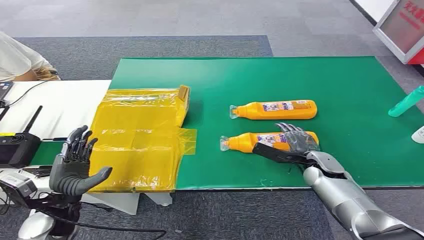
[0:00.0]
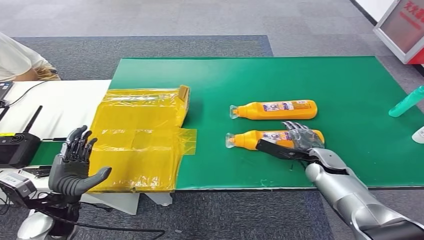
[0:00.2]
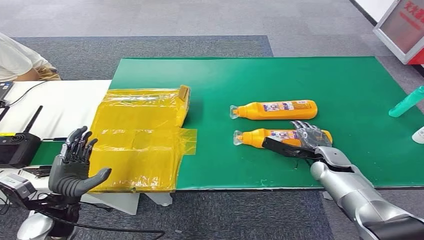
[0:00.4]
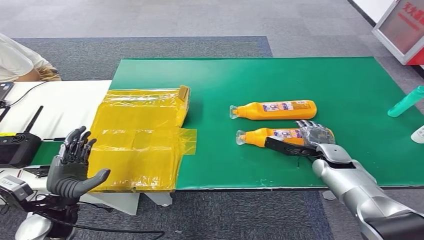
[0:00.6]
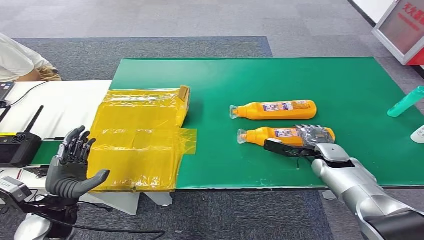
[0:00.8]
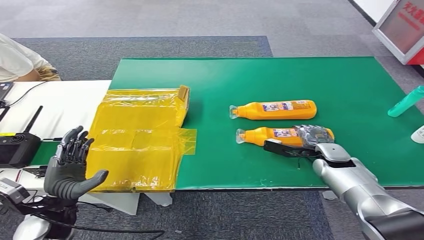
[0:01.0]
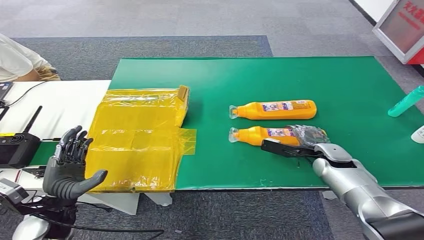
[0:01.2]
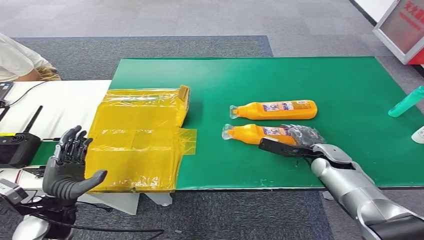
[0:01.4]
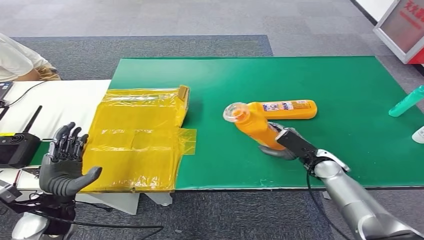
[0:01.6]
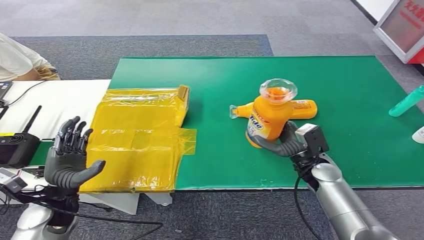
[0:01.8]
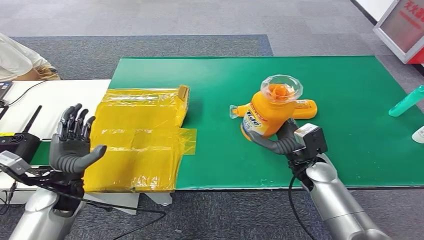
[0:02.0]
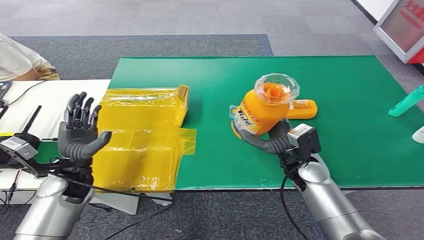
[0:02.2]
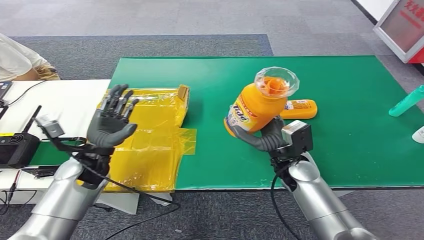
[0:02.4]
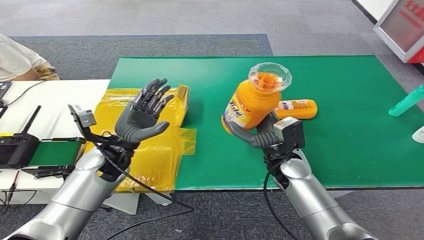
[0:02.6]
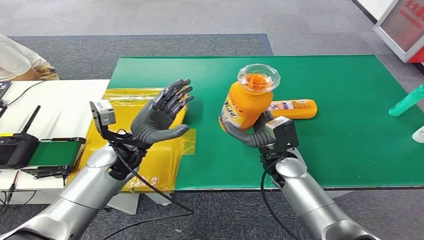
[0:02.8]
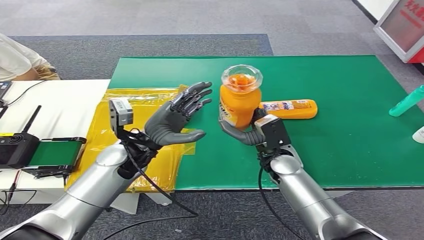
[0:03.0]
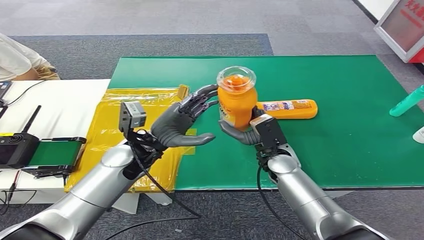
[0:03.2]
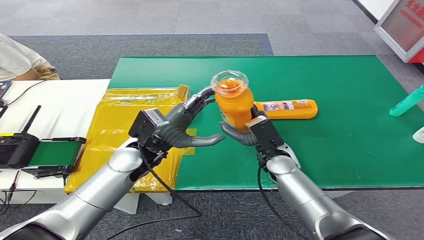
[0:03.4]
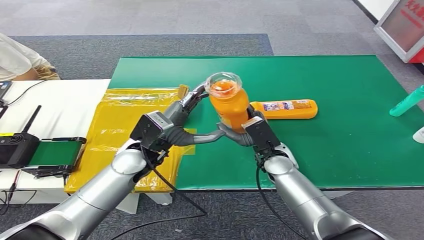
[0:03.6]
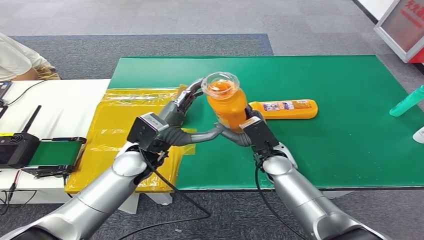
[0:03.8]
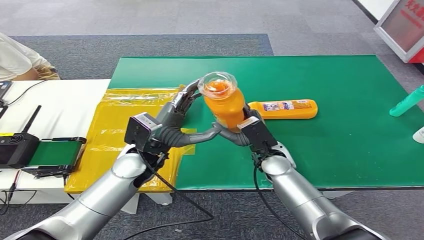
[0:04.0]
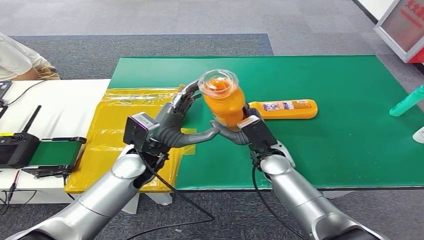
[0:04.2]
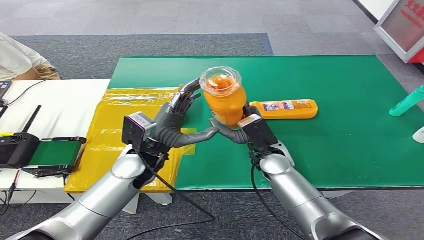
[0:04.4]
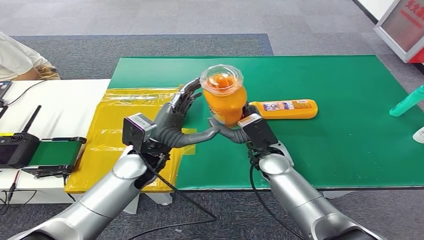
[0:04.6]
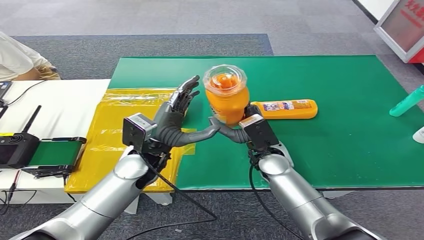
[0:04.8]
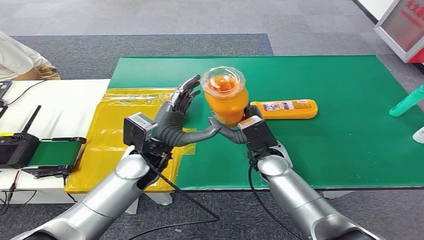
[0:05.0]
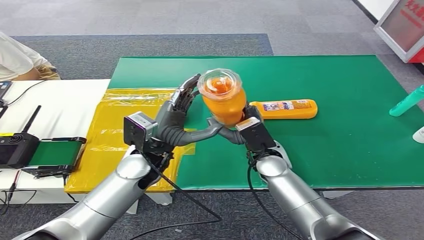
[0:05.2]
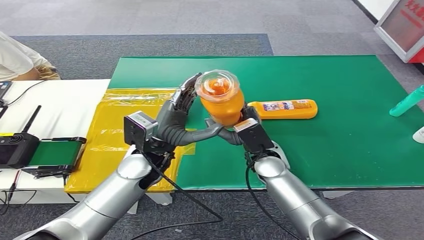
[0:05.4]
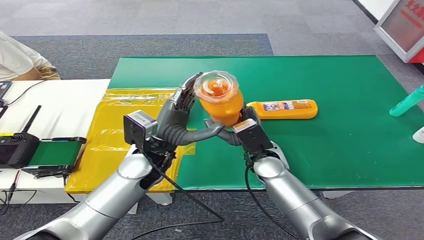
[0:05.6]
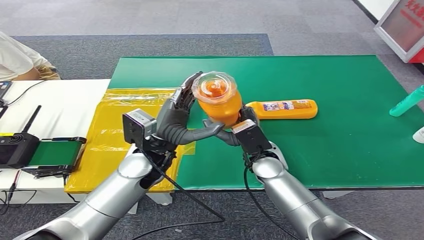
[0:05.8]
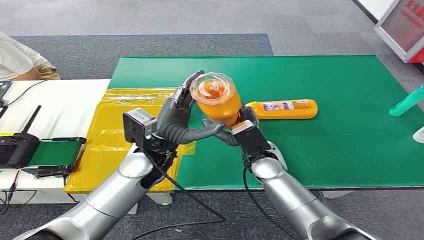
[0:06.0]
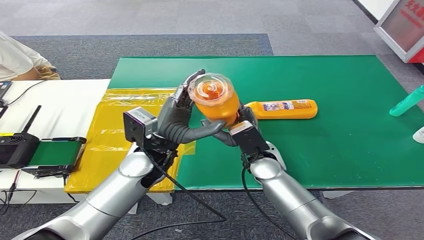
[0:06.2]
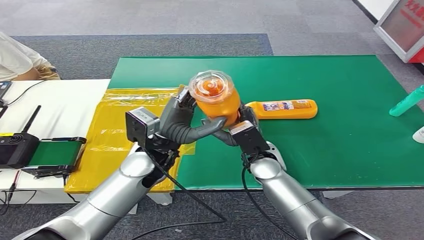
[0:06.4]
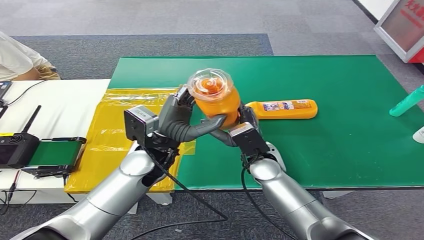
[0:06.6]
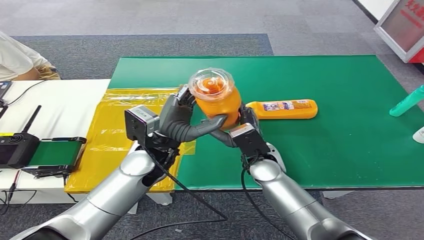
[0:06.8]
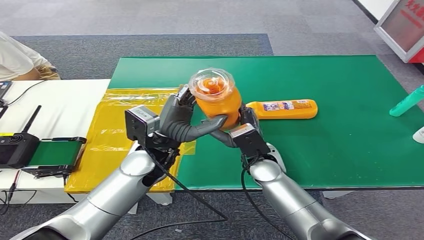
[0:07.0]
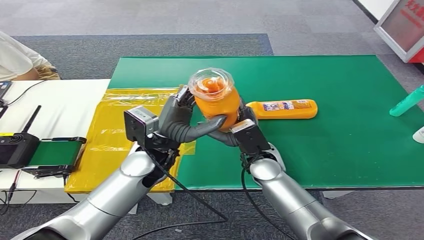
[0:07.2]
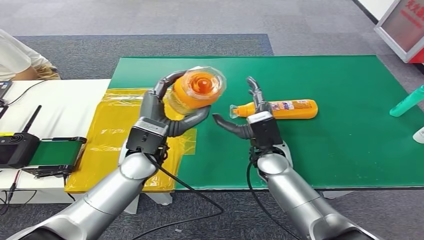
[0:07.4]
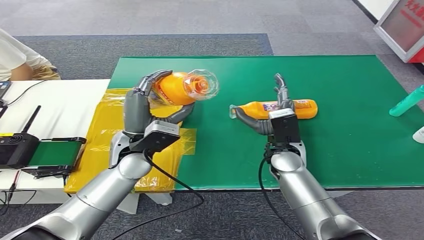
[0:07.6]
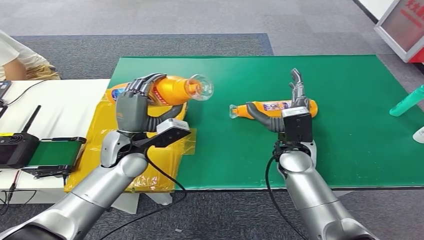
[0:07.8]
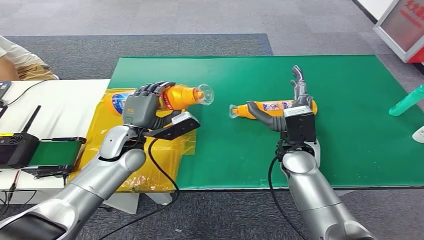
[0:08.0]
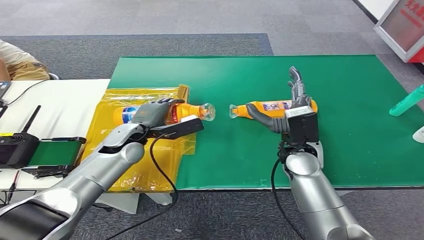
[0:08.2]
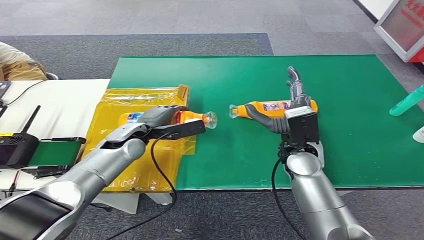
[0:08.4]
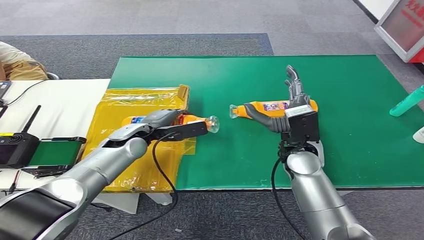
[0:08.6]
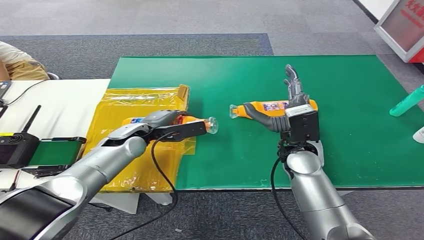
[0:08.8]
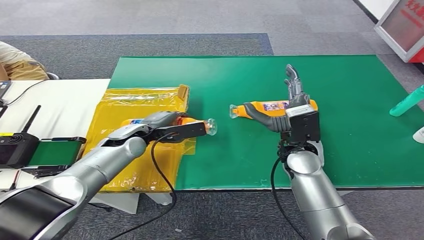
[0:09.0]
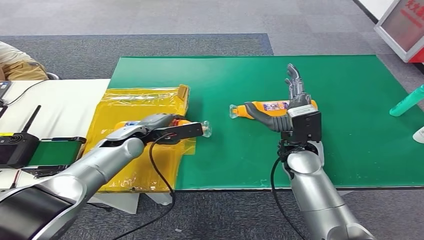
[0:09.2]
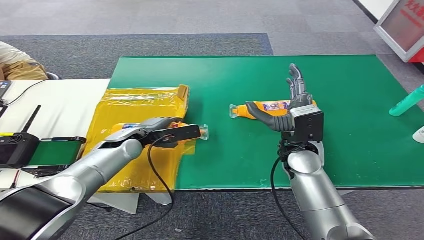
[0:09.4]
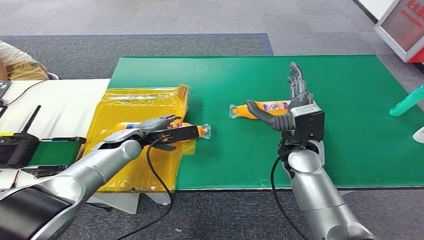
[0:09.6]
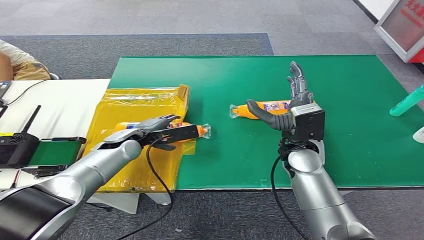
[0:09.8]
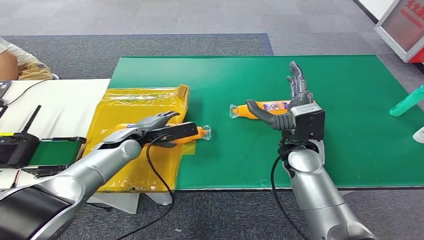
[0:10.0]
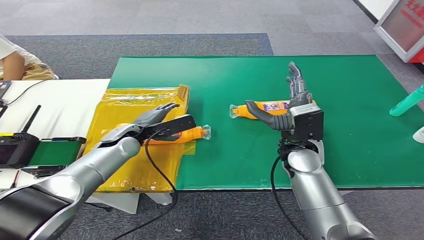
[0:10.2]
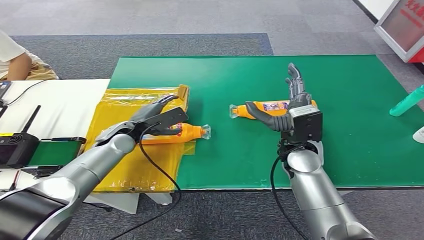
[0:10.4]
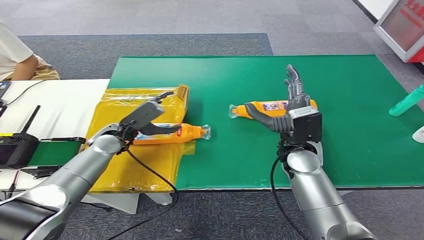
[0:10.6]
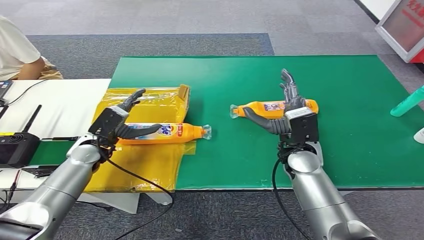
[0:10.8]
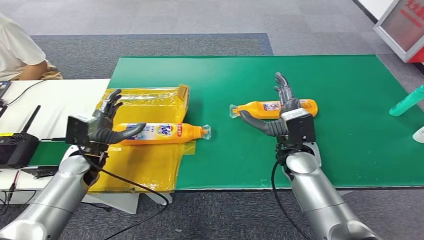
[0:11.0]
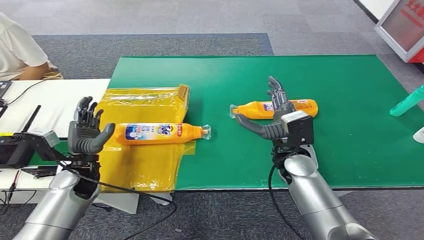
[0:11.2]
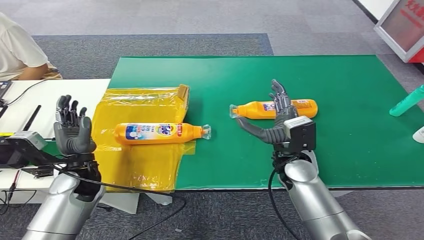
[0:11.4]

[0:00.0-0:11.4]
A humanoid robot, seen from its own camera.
Step, 0:00.0 to 0:02.8: Pick up the bottle from the table.
Step, 0:03.0 to 0:11.4: Turn the bottle to the front side.
0:04.2 to 0:07.2: The hands stay close to where they were, moving slightly.
0:08.6 to 0:10.0: There are only small adjustments of the hands.

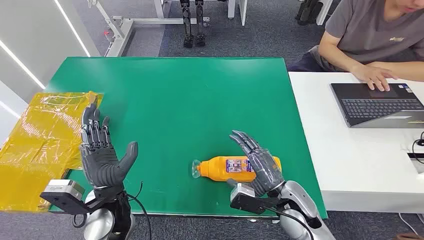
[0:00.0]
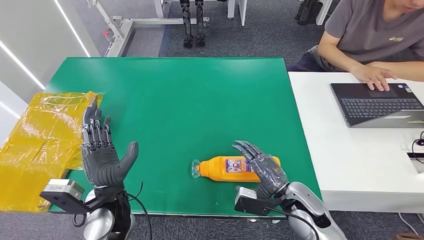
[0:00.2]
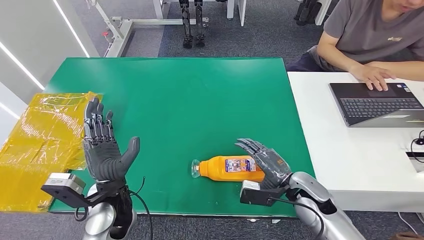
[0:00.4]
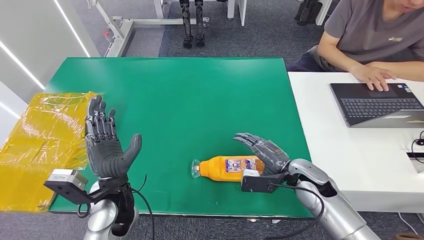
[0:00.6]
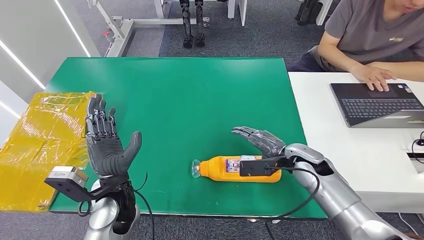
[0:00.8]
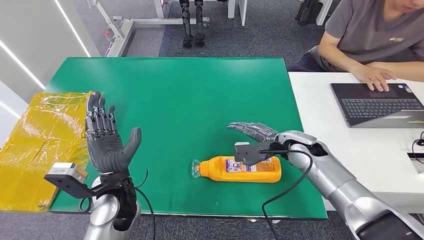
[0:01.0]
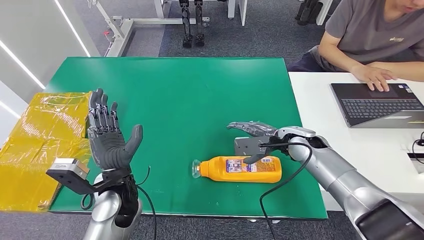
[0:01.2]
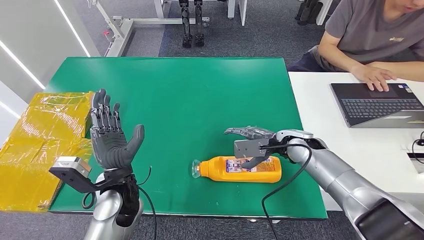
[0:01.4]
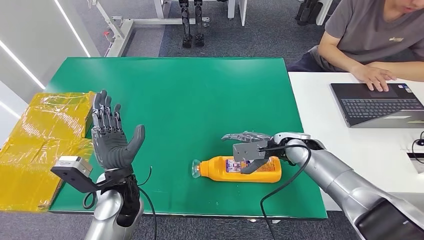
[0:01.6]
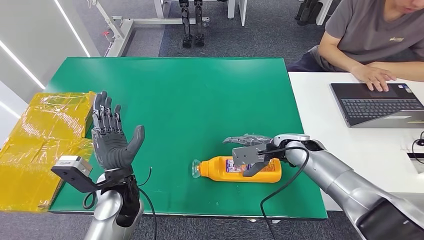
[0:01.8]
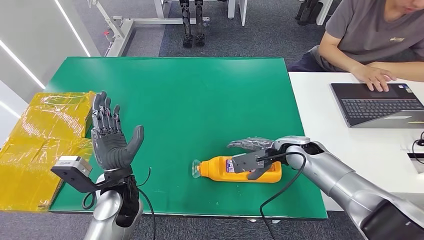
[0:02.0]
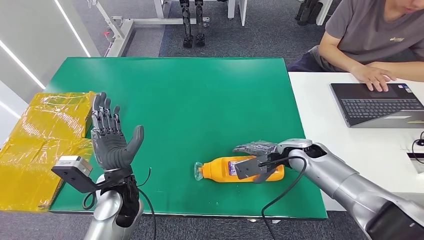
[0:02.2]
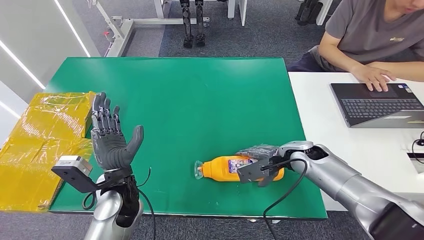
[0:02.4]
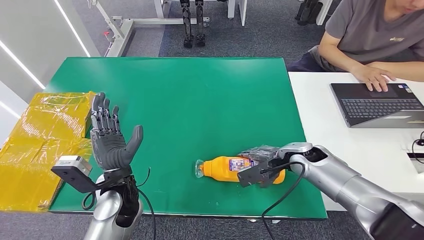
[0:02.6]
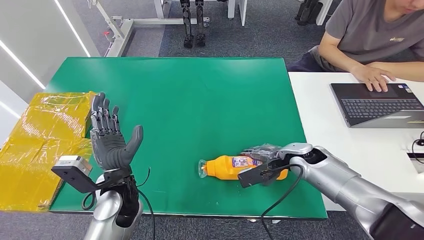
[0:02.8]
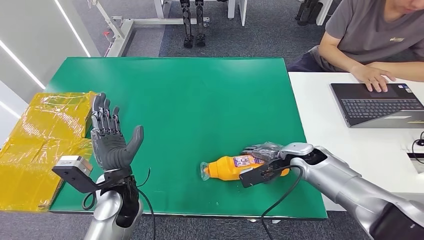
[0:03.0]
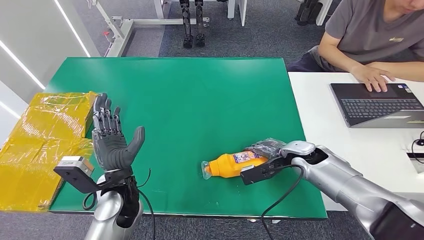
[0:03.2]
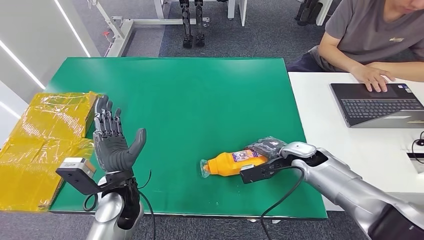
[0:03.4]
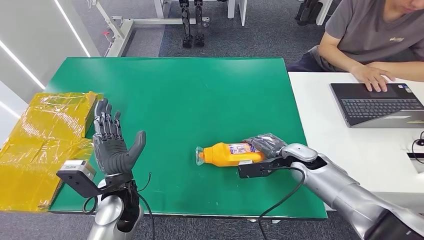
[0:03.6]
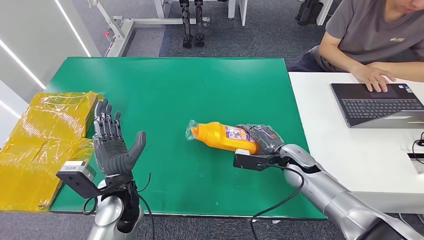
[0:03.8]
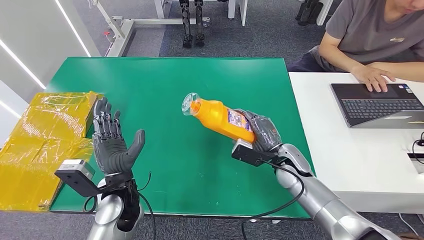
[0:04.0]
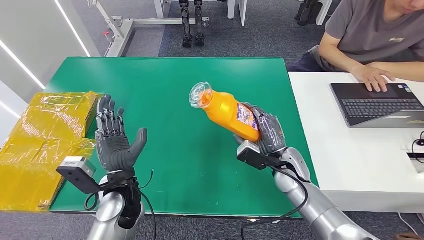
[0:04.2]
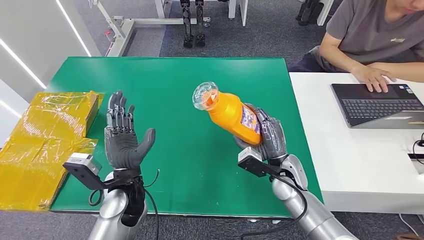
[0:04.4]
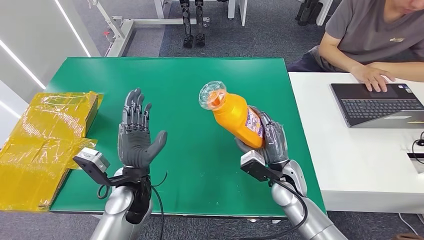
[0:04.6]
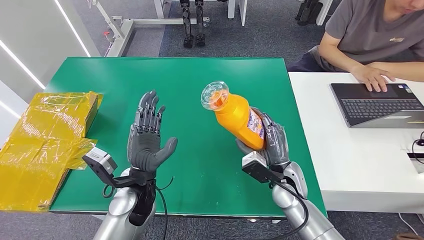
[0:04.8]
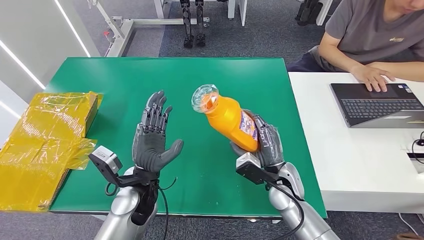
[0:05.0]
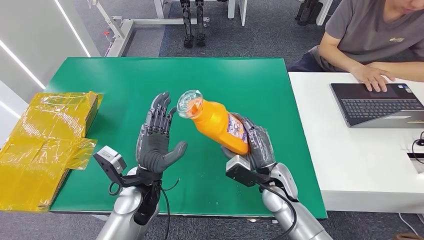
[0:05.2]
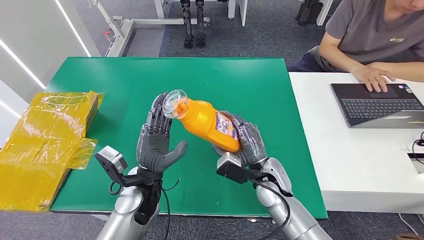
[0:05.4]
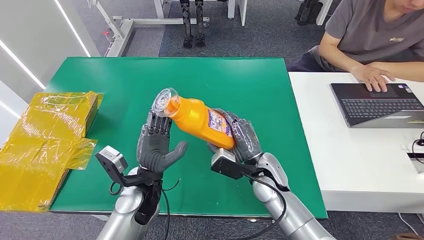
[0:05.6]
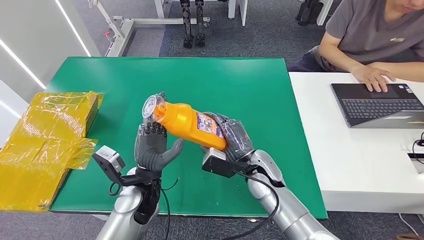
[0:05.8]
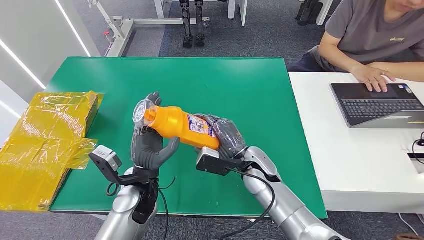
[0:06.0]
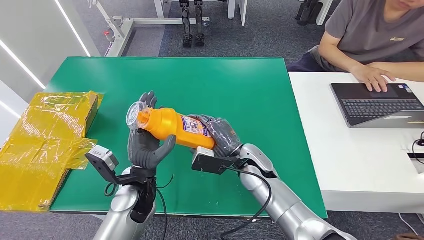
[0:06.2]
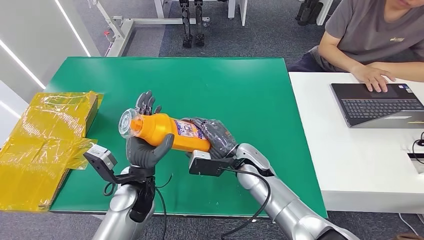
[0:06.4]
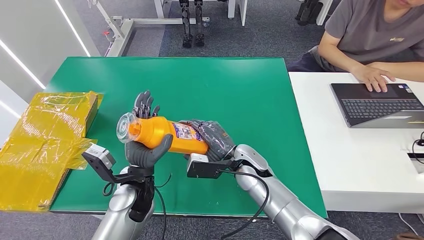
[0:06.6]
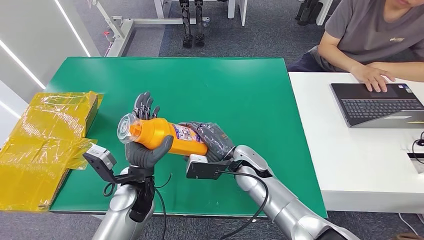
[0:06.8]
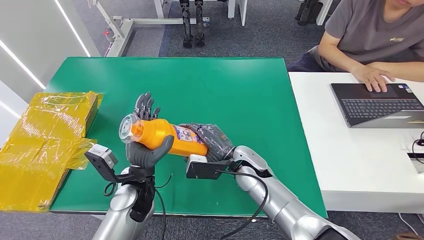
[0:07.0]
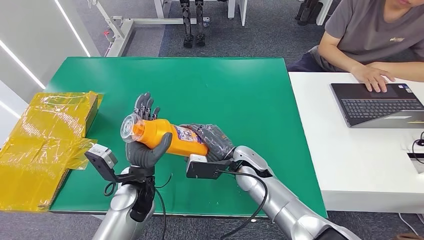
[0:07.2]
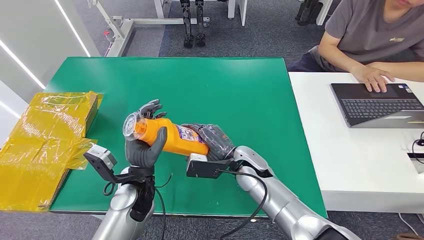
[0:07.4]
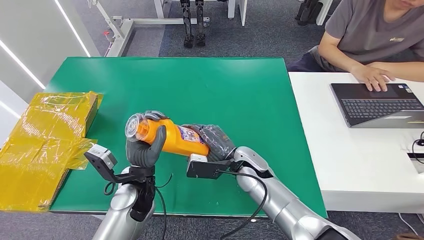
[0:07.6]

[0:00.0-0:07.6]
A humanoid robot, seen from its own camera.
Step, 0:00.0 to 0:05.6: Pick up the bottle from the table.
0:03.0 to 0:04.6: The right hand goes about 10 cm to the left and backward.
0:04.6 to 0:06.0: The right hand travels to the left by about 10 cm.
0:06.0 to 0:07.6: The hands make only small movements.
